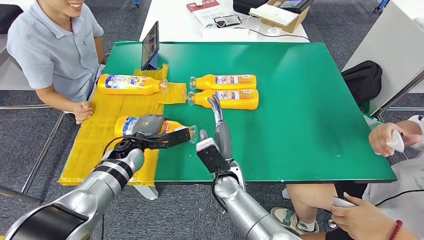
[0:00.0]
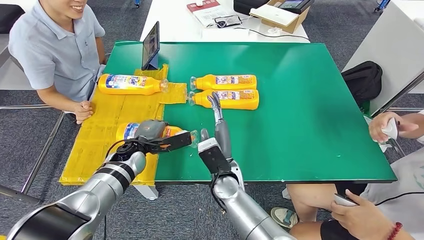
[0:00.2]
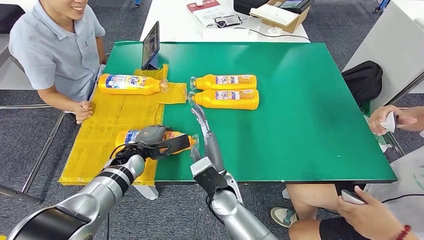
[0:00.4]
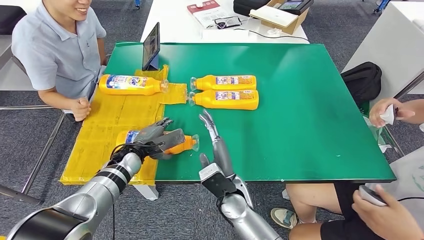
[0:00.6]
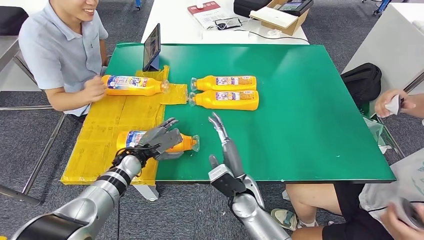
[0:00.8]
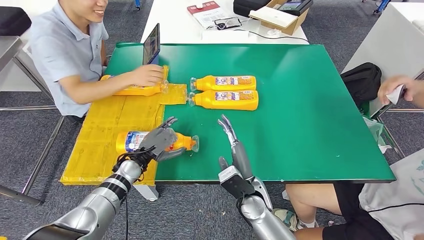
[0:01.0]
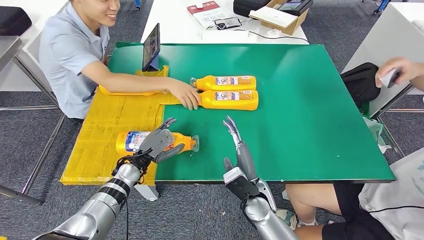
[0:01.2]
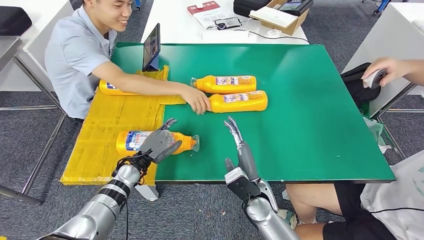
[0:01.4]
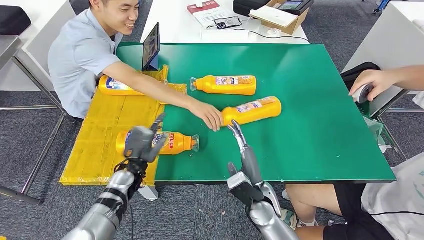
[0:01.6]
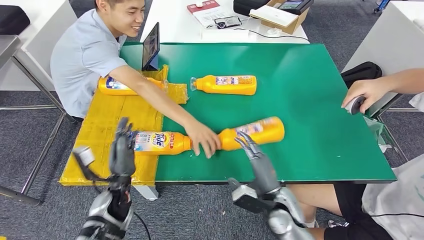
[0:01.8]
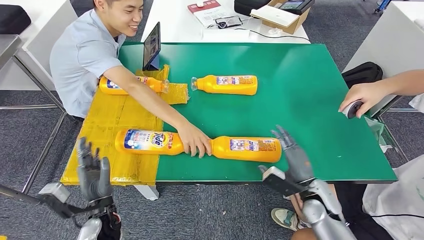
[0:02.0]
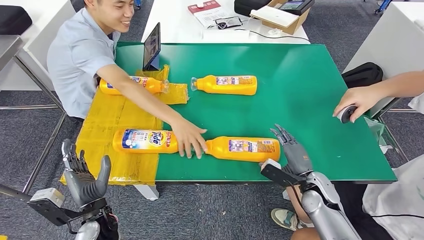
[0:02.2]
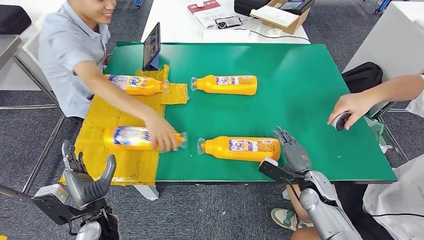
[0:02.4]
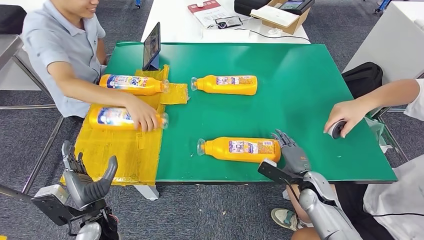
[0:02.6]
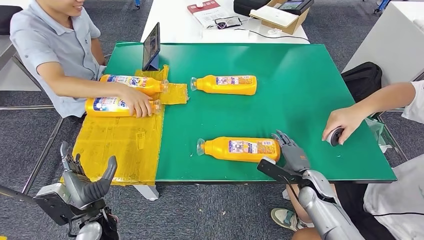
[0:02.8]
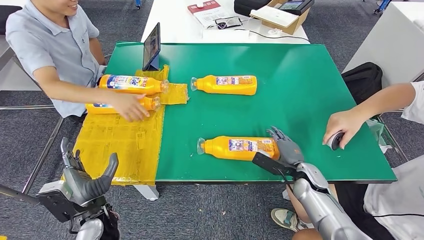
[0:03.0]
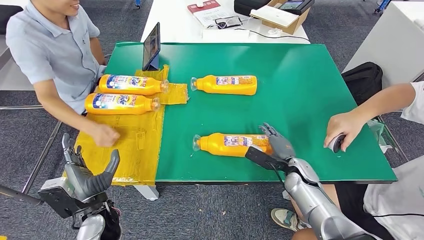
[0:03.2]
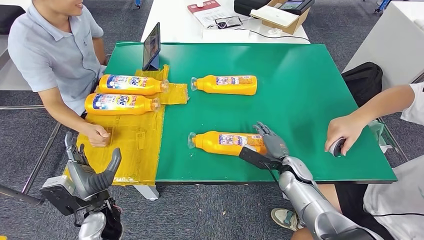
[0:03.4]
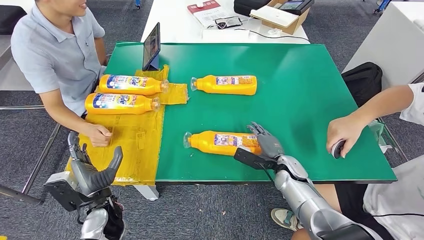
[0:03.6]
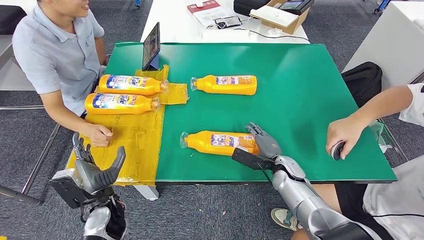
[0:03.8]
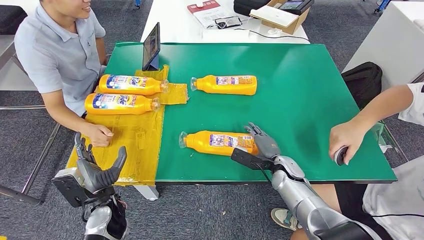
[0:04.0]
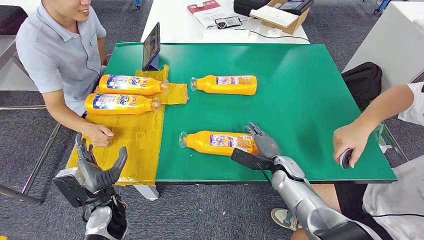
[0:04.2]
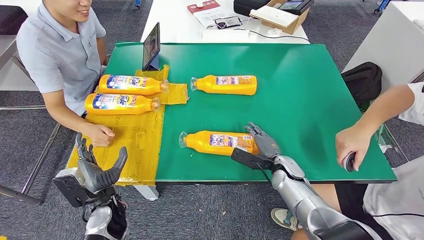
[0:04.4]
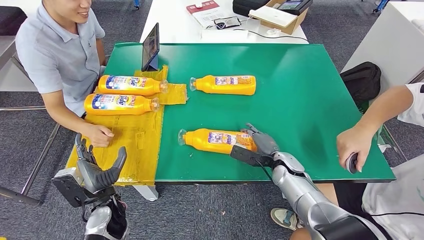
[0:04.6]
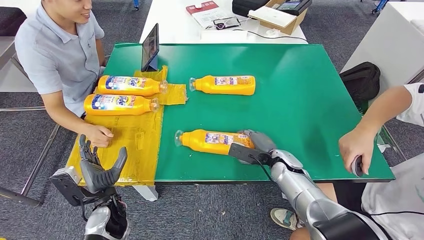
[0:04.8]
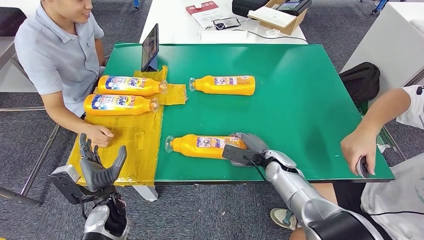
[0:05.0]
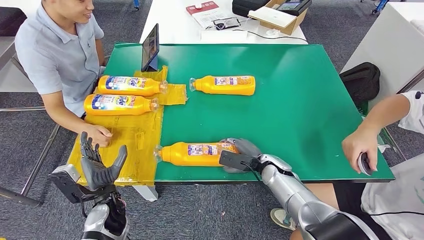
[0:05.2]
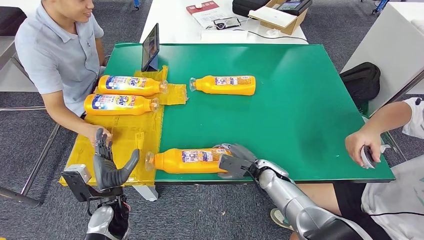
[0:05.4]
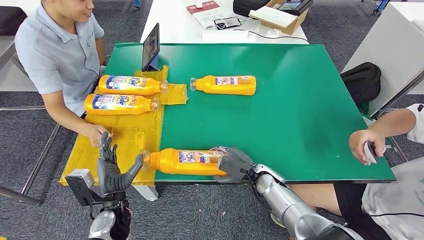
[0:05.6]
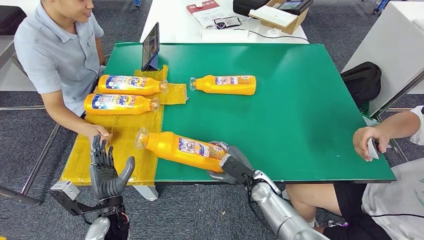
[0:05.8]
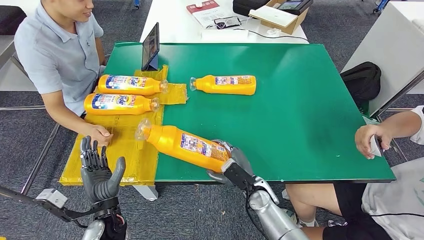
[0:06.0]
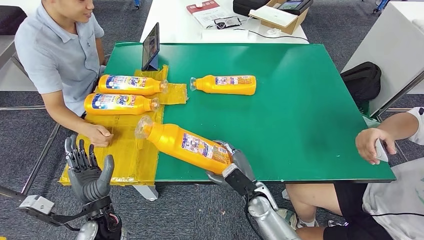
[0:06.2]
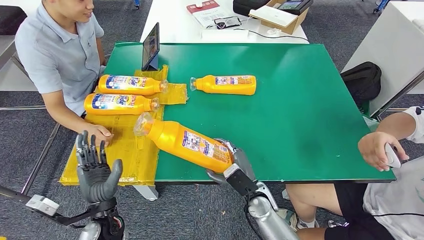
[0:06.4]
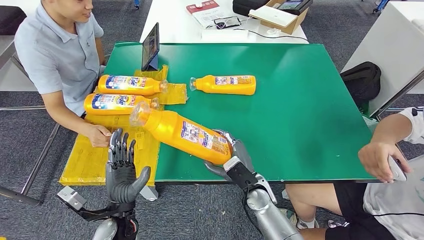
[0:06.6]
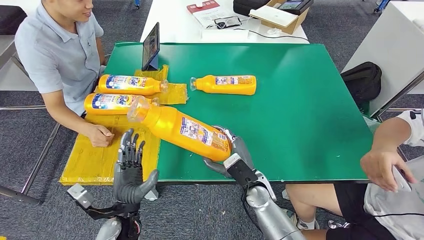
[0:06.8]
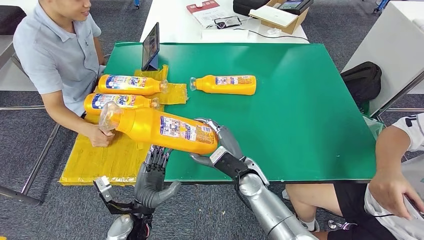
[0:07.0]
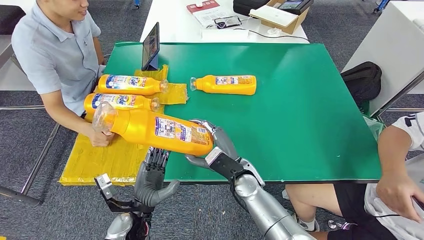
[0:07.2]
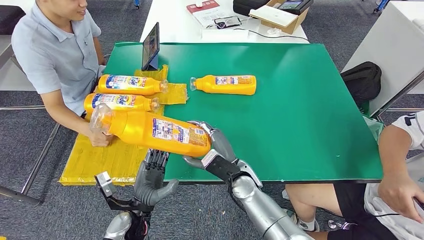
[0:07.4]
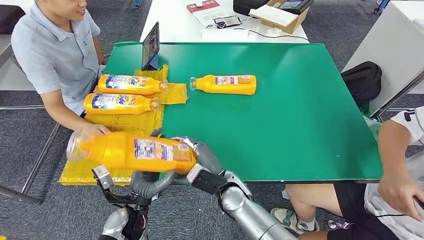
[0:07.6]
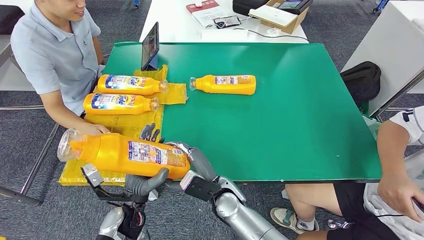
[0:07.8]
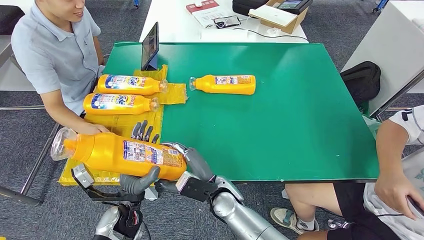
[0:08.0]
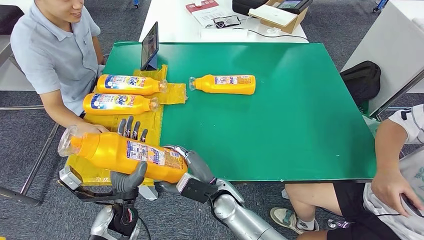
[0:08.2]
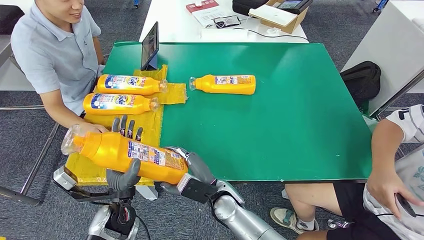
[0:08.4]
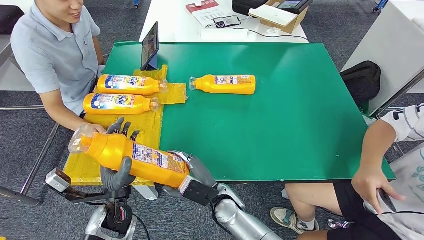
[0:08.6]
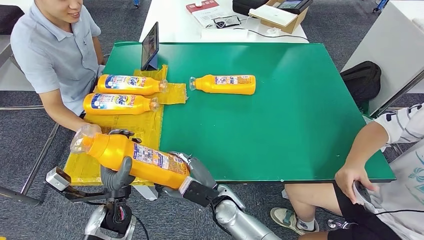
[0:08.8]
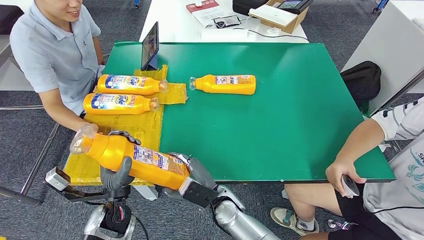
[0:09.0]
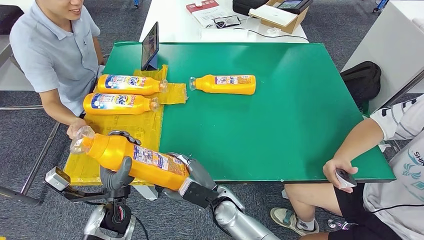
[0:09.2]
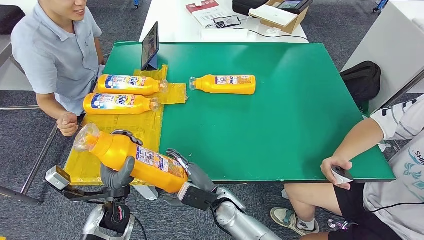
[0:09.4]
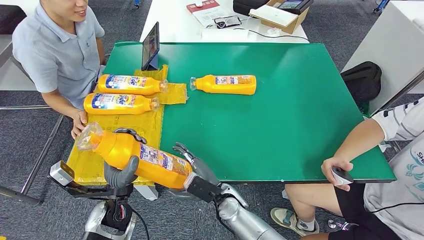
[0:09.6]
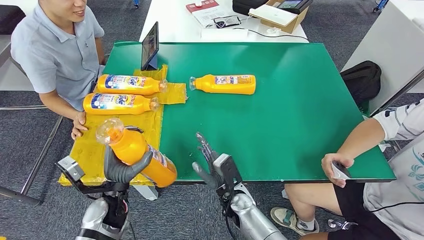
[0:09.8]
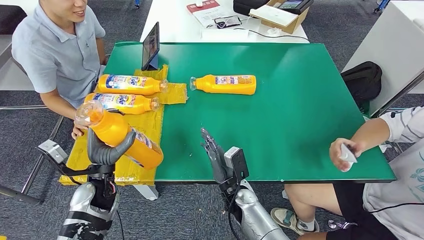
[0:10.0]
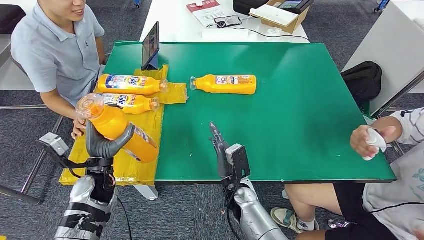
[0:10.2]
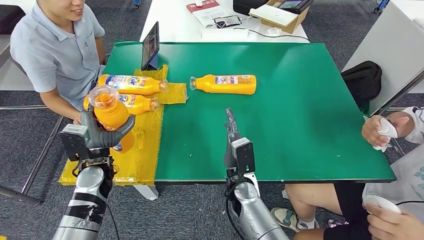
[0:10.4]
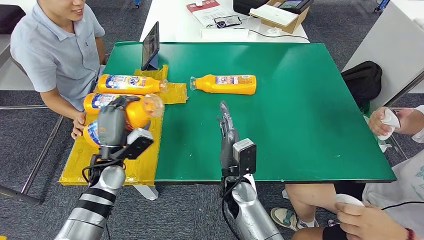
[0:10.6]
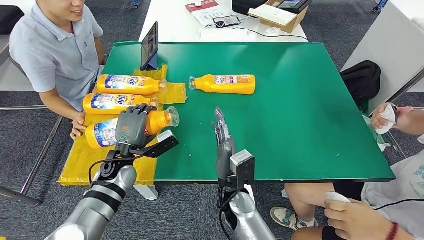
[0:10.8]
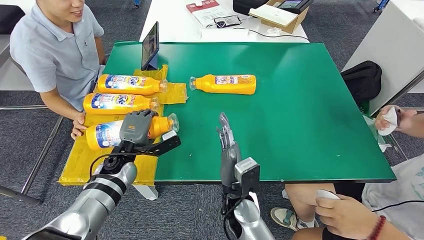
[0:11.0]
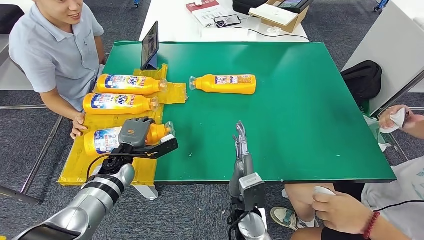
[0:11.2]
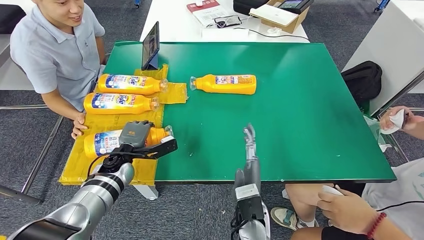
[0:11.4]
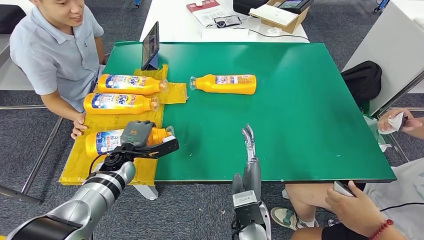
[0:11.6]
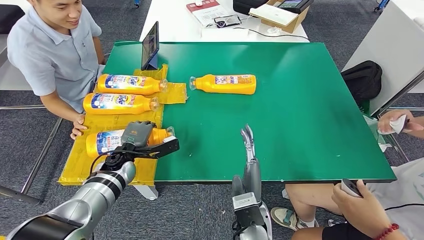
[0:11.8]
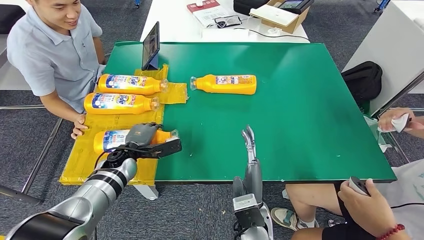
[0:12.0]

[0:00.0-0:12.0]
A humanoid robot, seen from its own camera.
Step, 0.0 to 2.6 s: Flip the bottle to face forward.
Step, 2.8 to 6.4 s: Pick up the bottle from the table.
6.0 to 7.6 s: The right hand heads to the left and upward, covering approximately 10 cm, while the left hand is displaced to the right by some 5 cm.
7.6 to 9.0 s: The right hand changes place by about 5 cm.
10.4 to 12.0 s: The left hand travels forward by approximately 5 cm, while the right hand is displaced backward by roughly 10 cm.

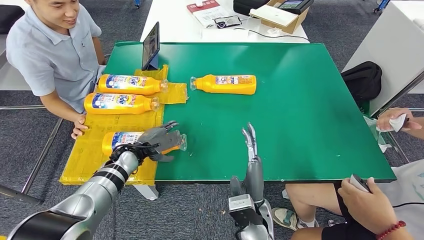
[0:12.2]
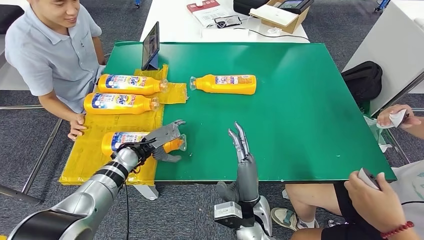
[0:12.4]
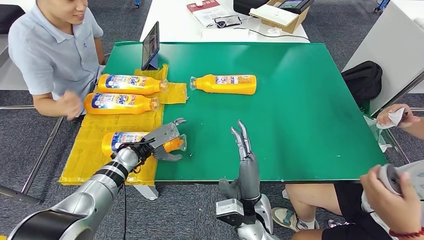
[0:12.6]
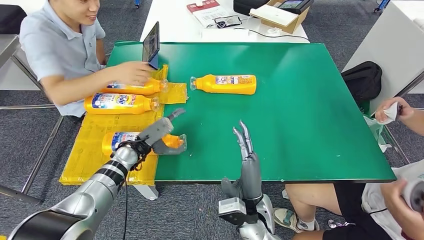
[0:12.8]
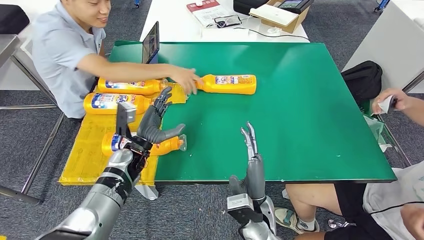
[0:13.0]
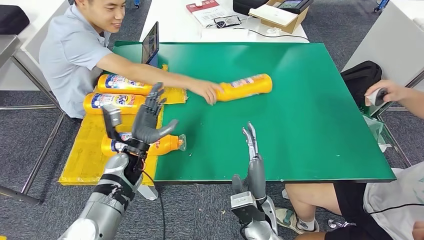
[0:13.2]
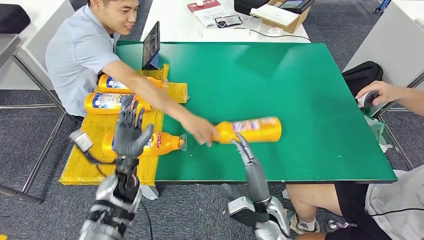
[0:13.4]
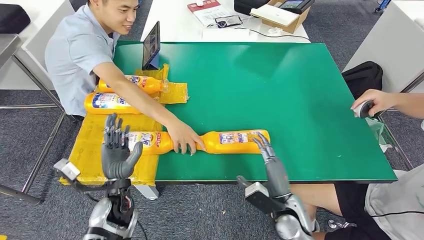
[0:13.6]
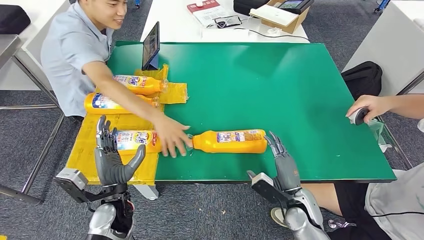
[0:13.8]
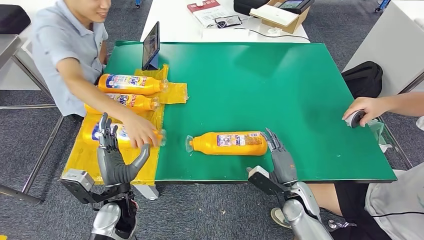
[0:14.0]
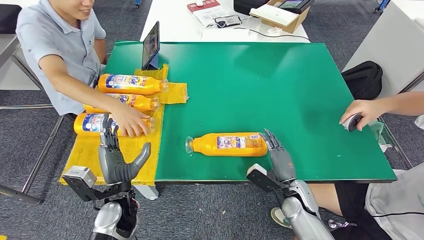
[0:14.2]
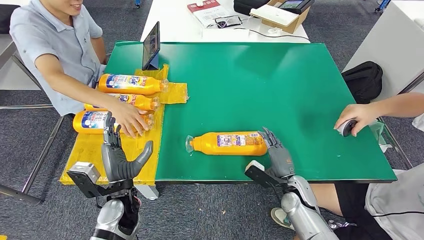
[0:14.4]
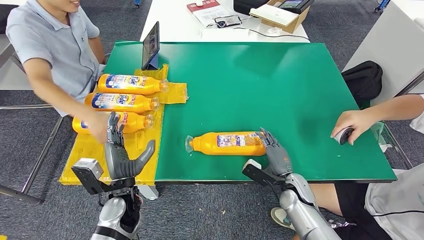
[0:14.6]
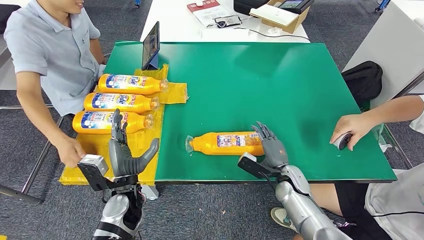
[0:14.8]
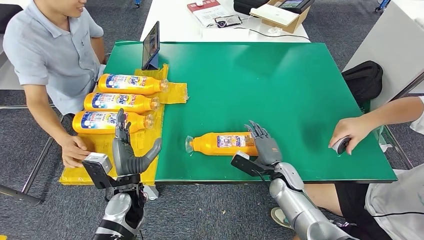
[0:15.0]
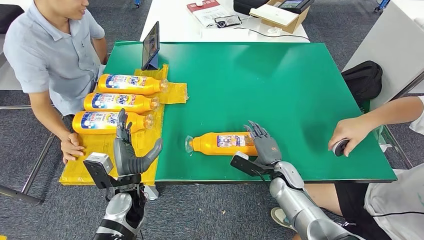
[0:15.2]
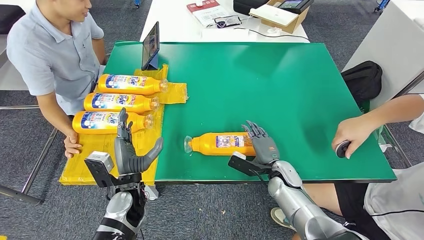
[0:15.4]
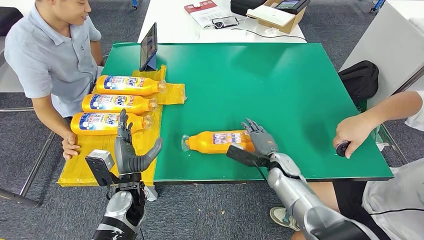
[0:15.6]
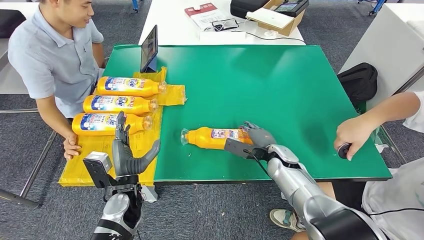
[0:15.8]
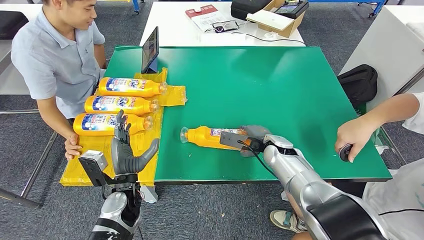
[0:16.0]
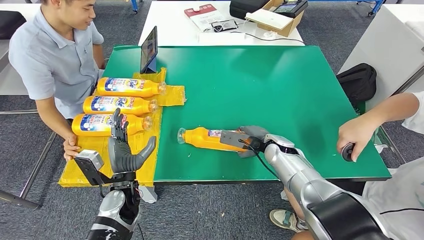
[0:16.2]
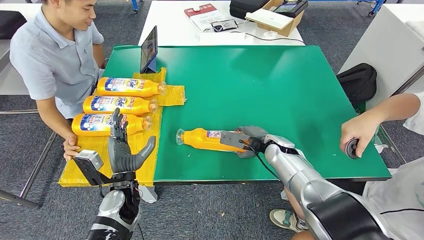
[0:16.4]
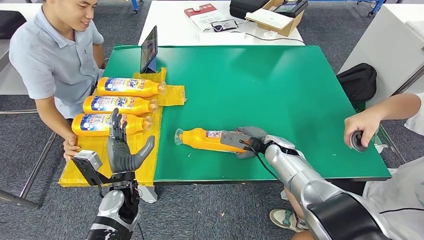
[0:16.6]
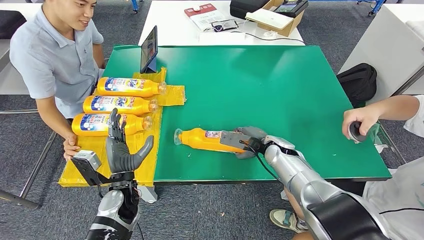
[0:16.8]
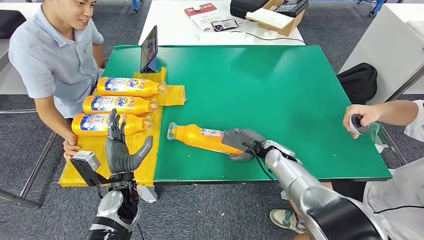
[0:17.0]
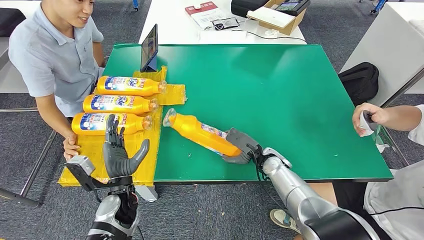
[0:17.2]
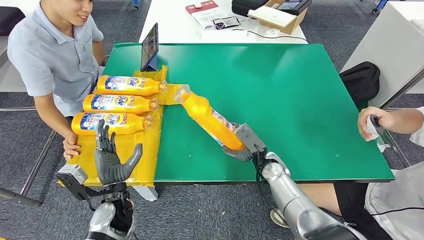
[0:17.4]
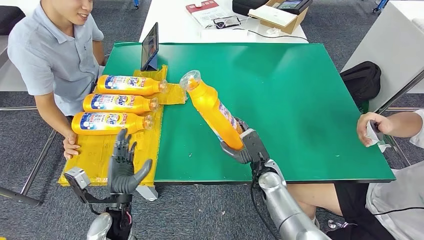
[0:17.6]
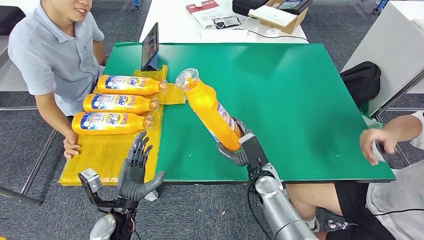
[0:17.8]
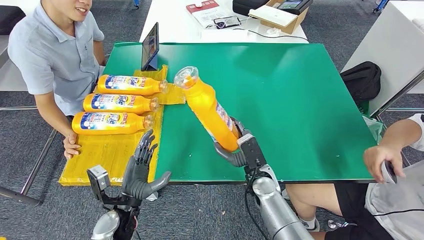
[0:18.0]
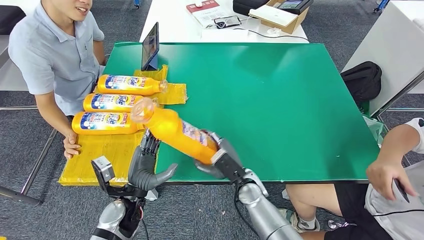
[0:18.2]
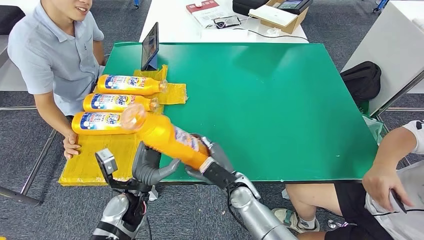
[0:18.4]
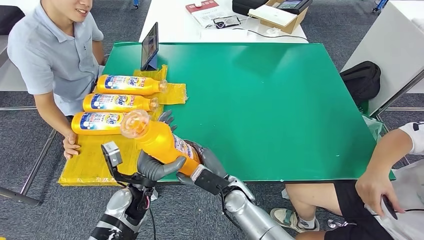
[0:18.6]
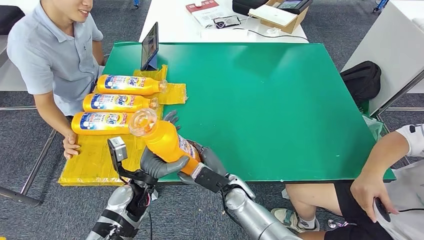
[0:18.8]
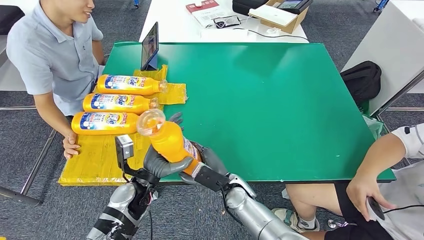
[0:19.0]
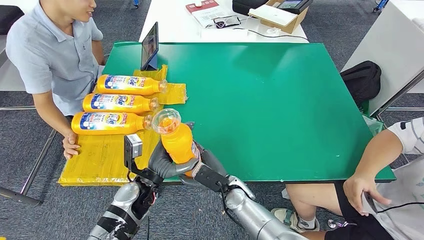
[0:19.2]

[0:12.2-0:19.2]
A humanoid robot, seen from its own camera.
Step, 12.2 to 14.2 s: Flip the bottle to face forward.
Step, 14.4 to 17.4 s: Pick up the bottle from the table.
